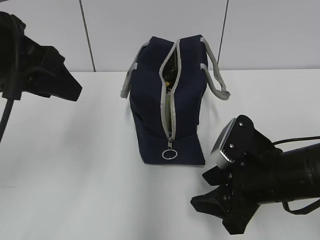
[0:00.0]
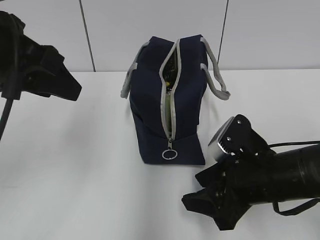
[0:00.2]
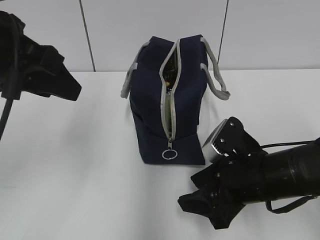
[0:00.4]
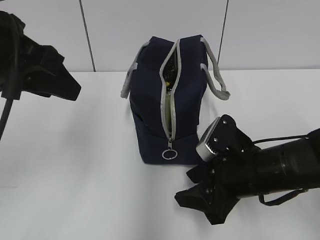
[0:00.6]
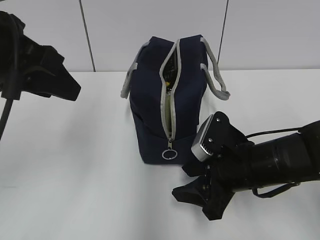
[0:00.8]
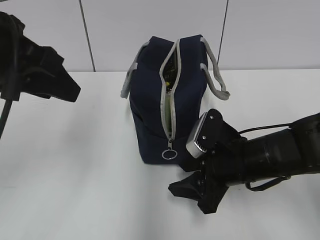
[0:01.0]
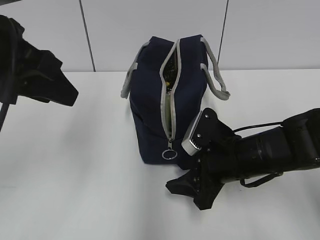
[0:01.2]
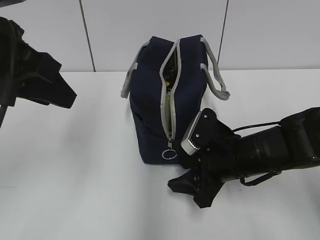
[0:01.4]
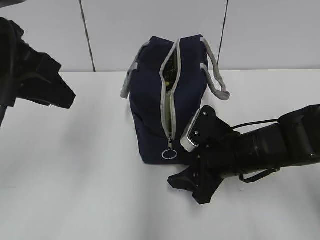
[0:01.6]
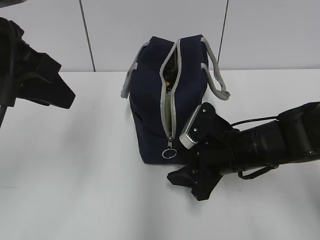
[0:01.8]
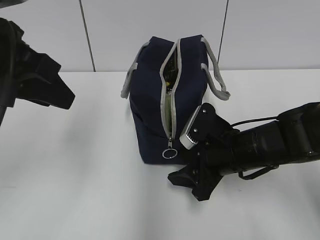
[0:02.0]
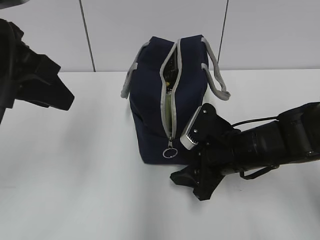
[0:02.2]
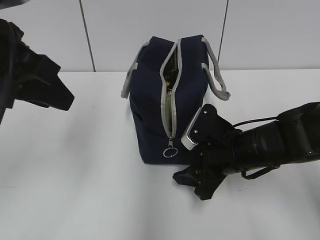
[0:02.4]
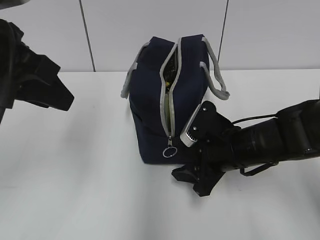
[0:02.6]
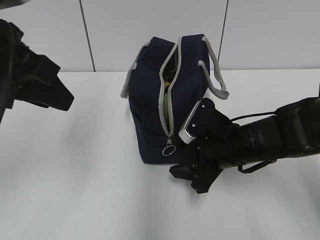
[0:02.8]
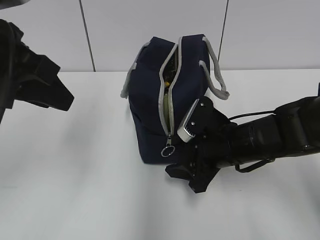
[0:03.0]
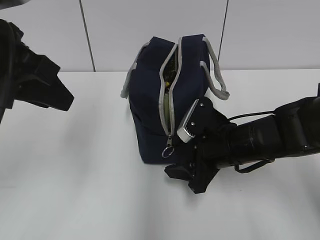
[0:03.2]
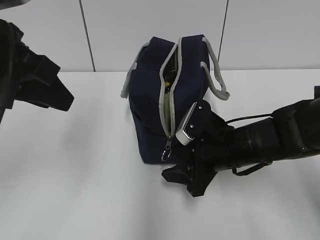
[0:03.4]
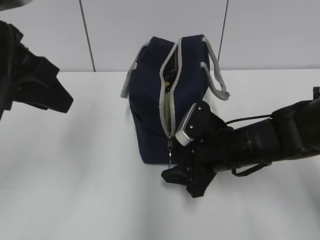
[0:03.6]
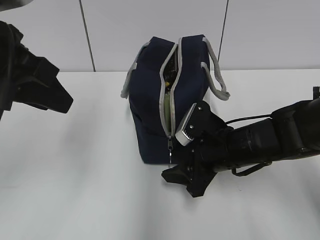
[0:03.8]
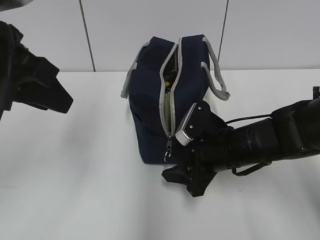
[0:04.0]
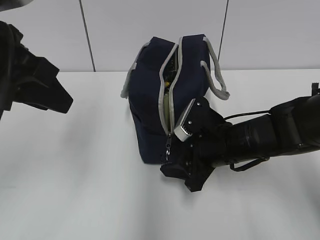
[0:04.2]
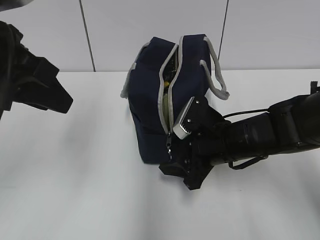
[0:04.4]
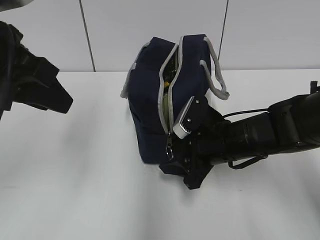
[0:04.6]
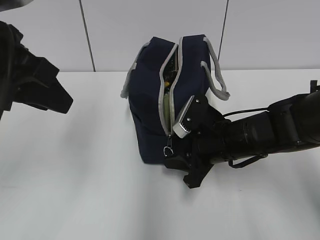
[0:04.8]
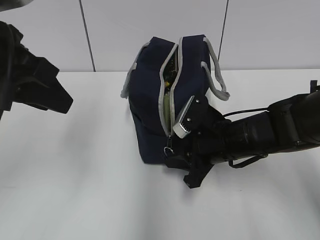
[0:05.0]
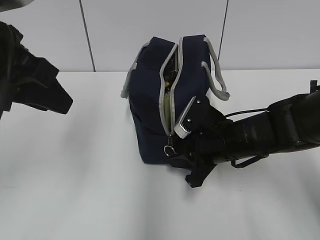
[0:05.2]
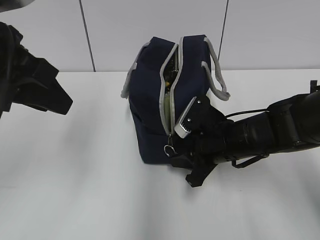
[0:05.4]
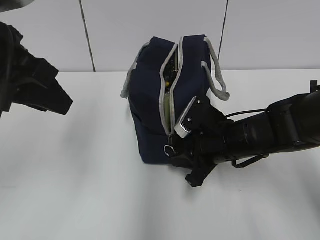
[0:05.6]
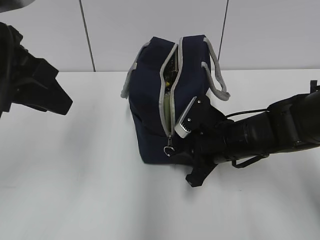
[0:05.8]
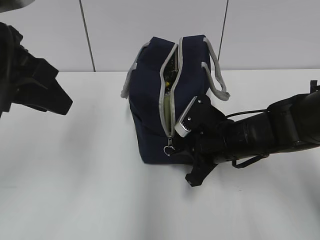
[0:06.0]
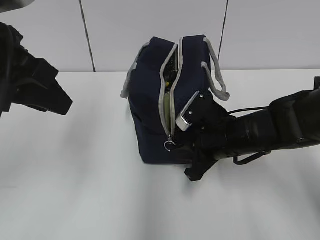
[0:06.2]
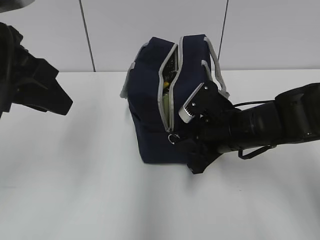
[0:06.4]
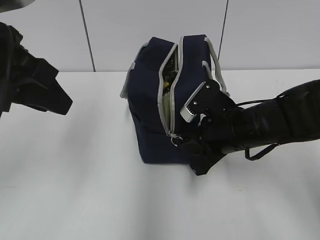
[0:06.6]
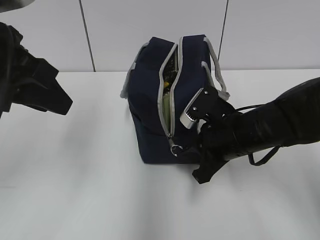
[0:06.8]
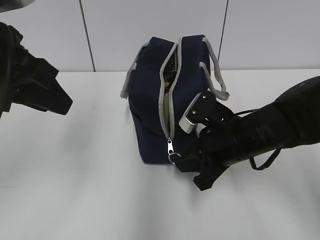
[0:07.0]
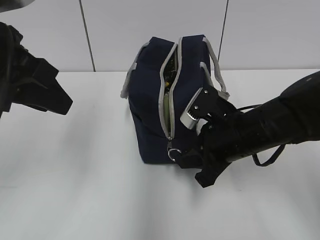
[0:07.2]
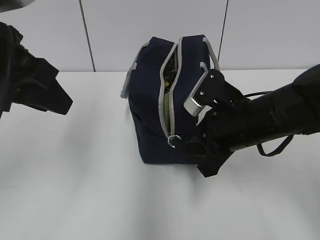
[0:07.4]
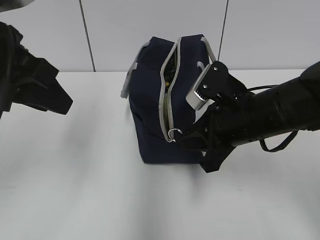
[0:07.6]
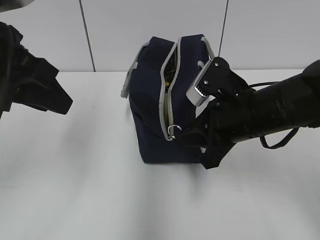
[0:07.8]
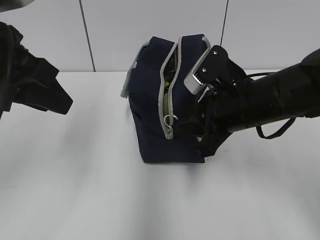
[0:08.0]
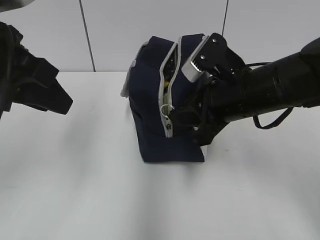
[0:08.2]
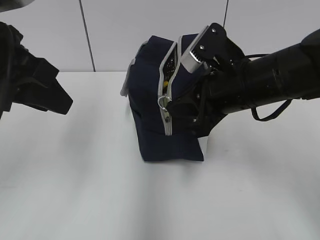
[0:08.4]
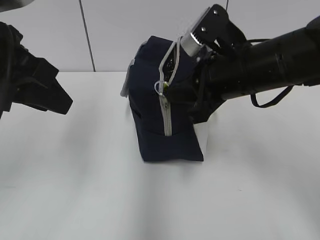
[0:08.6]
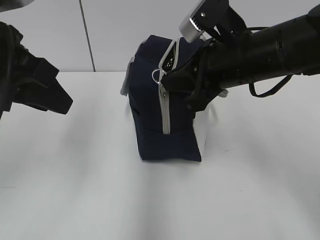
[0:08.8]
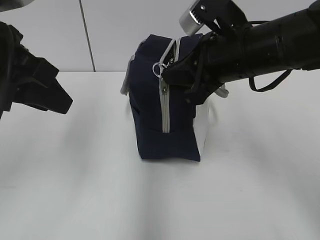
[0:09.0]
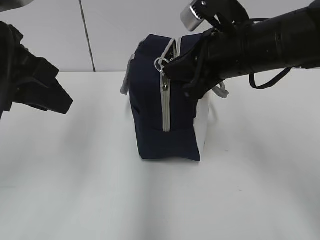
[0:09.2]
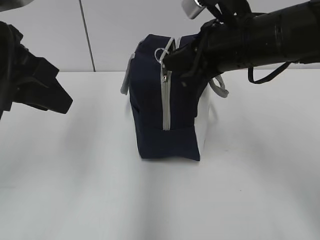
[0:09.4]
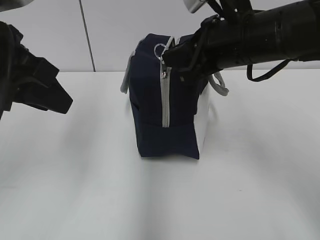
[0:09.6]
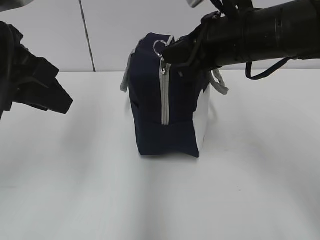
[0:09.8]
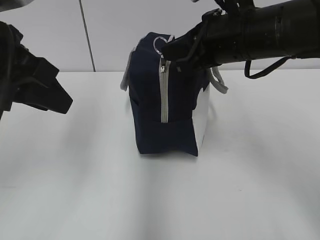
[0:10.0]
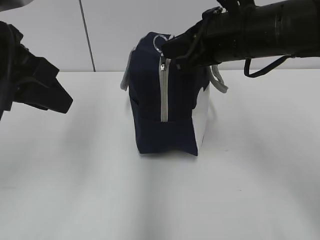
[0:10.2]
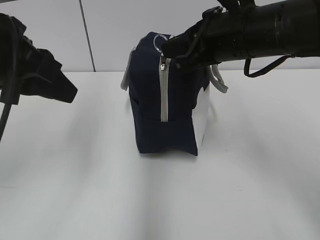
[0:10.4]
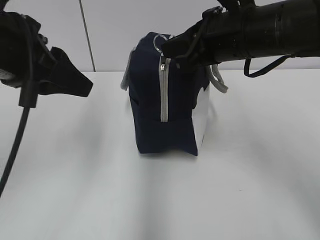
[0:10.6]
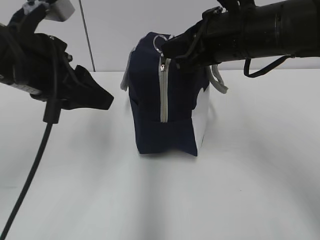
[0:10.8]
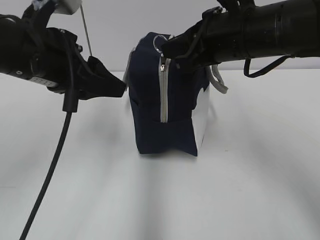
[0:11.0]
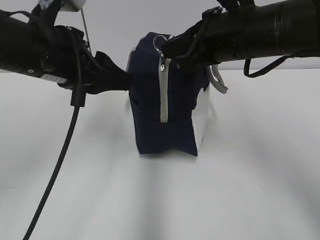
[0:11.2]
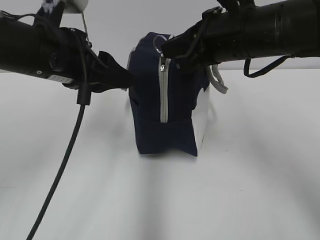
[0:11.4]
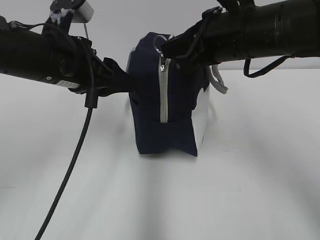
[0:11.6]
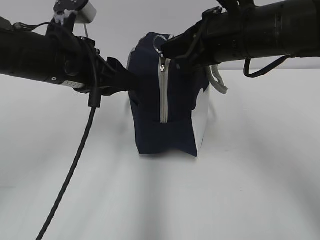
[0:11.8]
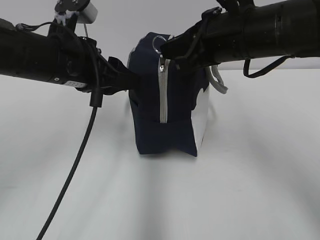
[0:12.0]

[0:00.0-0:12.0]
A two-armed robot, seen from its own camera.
0:00.0 to 0:01.6: The right gripper moves forward, some 5 cm.
0:01.6 to 0:03.0: The grippers stay close to where they were, moving slightly.
0:03.0 to 0:04.4: The two grippers keep their place.
0:04.4 to 0:06.0: The right gripper closes up.
0:06.0 to 0:07.6: The right gripper moves upward, about 10 cm.
0:07.6 to 0:09.0: The right gripper shifts some 10 cm upward.
0:09.0 to 0:10.4: The grippers move only a little.
0:10.4 to 0:12.0: The left gripper moves forward and downward, about 10 cm.

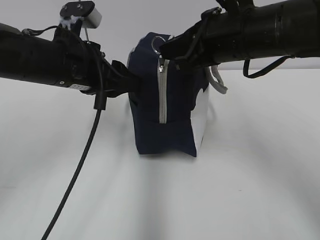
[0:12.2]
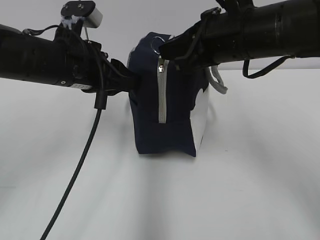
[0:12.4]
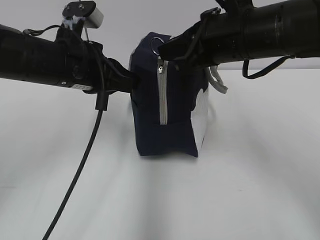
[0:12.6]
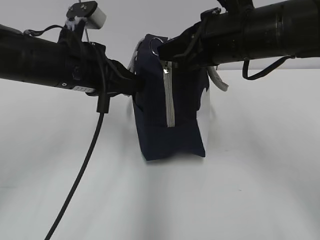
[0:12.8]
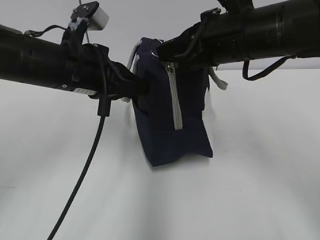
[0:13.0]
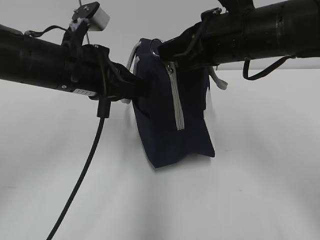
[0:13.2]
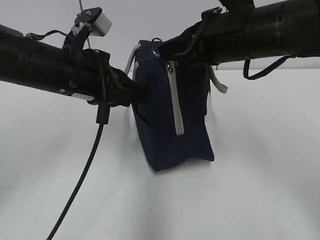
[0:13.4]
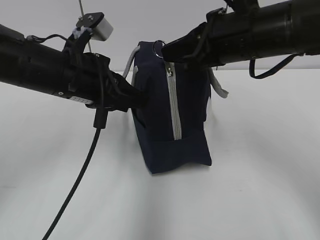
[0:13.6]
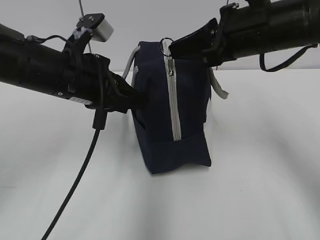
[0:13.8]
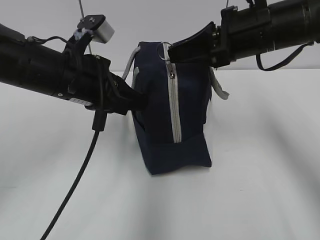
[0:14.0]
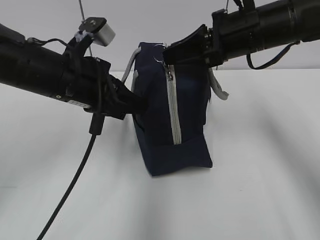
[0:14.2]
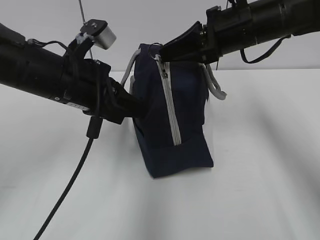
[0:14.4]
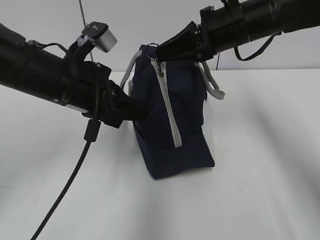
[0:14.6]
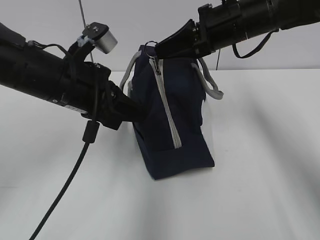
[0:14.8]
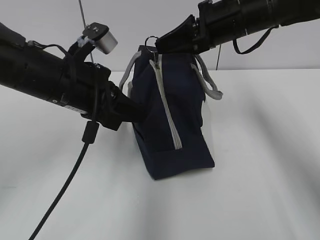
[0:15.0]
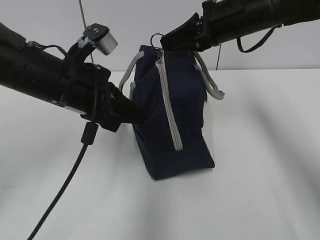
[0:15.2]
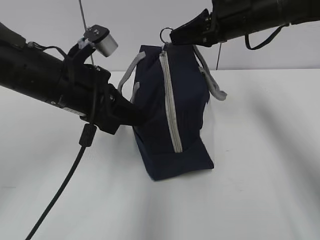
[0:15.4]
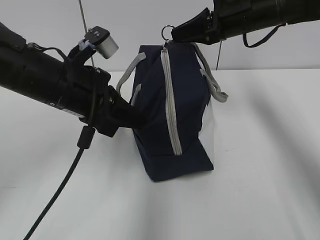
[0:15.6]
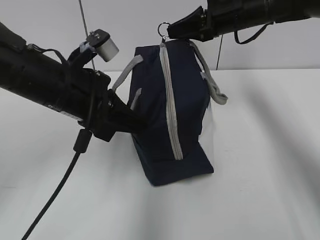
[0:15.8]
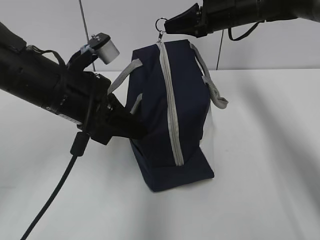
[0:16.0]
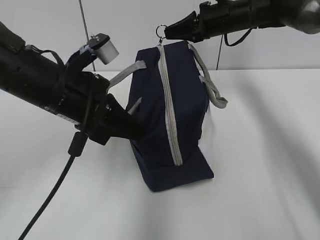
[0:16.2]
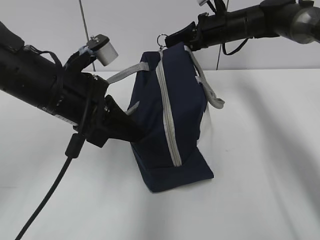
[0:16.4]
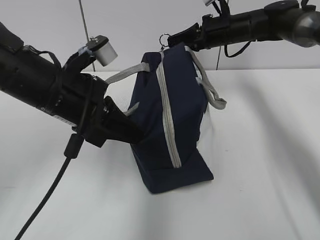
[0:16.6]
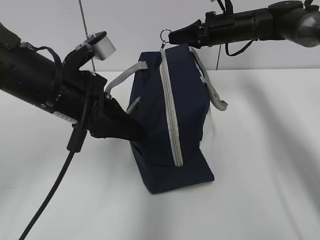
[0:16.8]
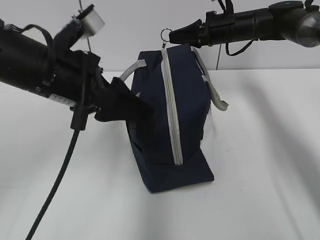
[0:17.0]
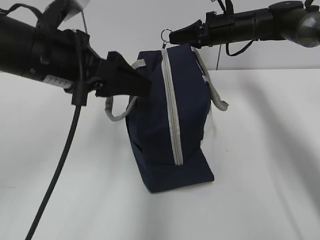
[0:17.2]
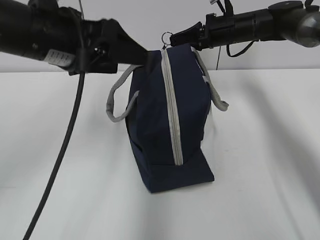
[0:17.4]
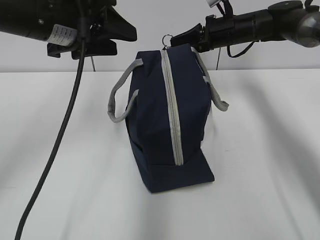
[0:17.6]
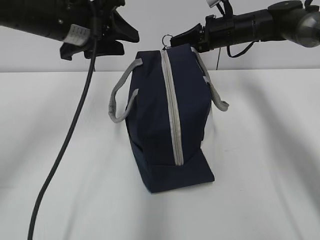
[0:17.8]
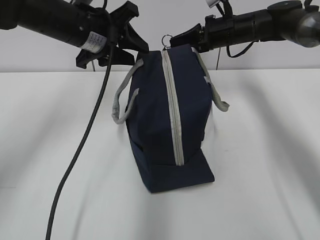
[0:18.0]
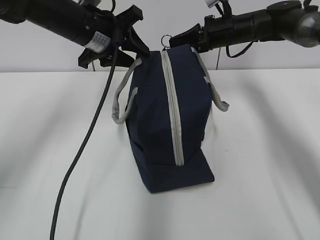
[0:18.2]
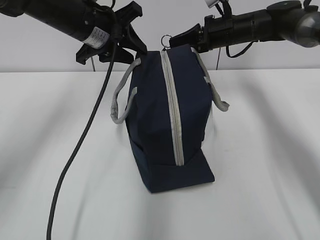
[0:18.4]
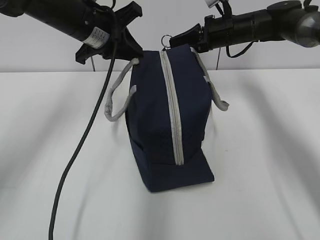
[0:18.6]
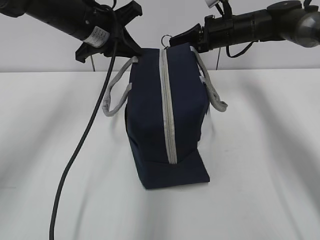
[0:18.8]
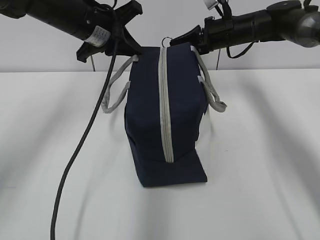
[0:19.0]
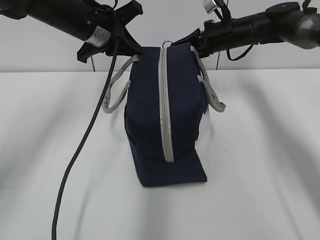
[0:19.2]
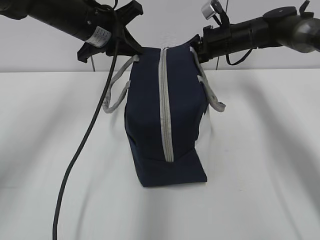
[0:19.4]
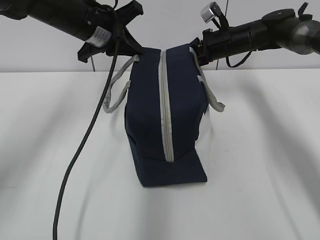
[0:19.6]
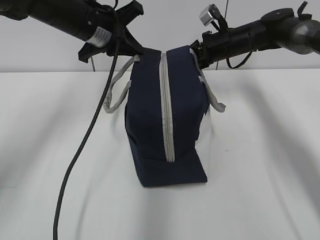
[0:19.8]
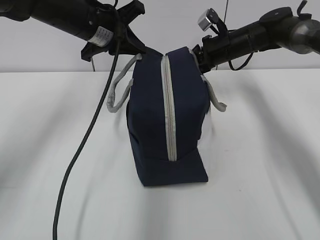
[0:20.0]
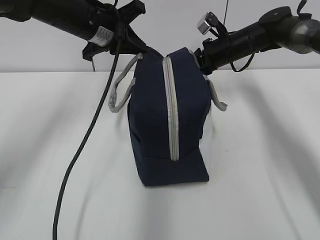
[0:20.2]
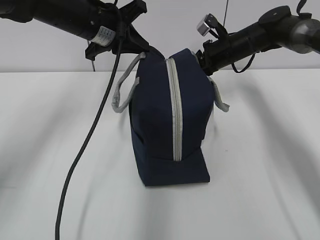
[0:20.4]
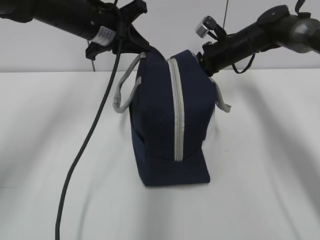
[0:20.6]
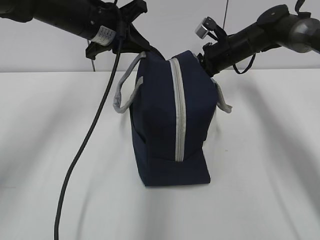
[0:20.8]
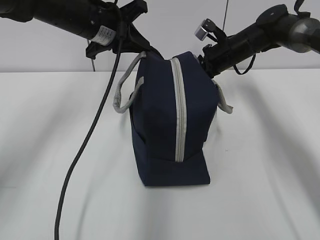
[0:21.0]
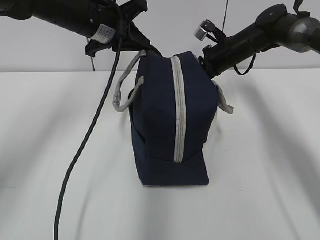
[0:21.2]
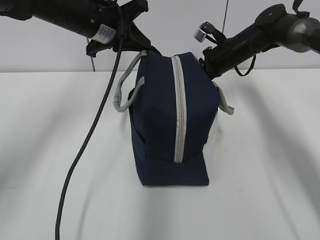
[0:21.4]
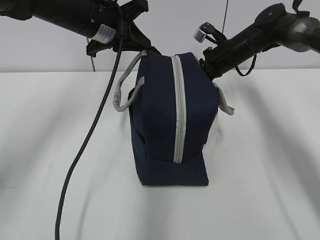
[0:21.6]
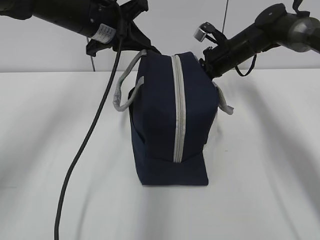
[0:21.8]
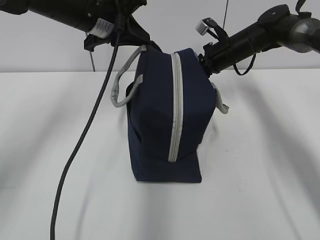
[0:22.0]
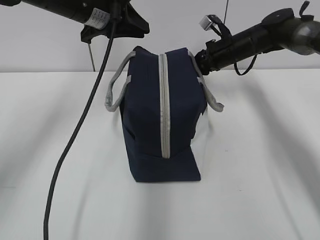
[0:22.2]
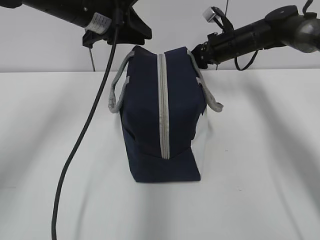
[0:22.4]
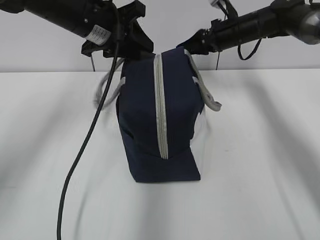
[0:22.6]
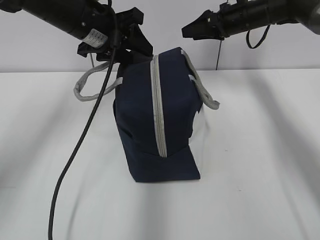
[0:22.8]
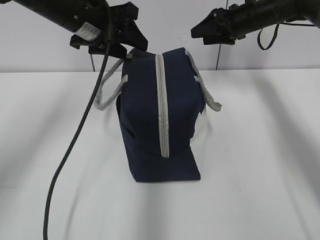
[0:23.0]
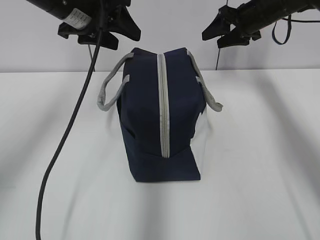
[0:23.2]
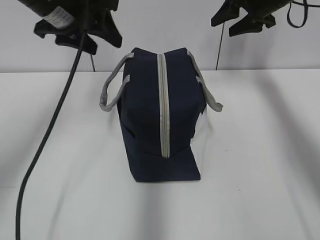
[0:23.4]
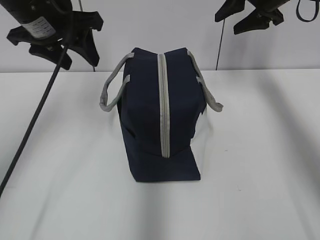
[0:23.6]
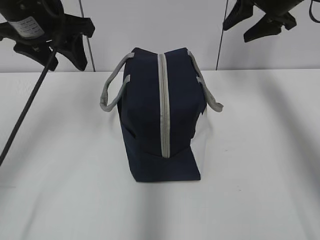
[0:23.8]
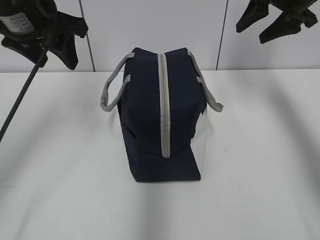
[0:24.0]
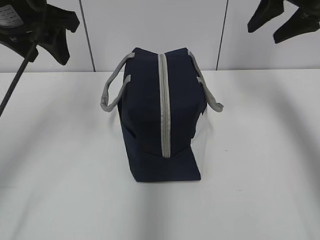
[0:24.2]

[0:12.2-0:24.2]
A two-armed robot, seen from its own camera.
Step, 0:12.2 to 0:16.8: Grab the lunch bag with your left hand.
Step, 0:17.0 to 0:21.4: Pull the zipper with your right hand.
Step, 0:21.6 to 0:21.8: Grab the lunch bag with your left hand.
0:12.2 to 0:13.8: The left gripper closes its fingers.
0:13.8 to 0:15.2: The right gripper shifts some 10 cm forward.
0:15.2 to 0:16.6: The right gripper goes approximately 15 cm forward and downward.
0:16.6 to 0:18.2: The left gripper travels forward by about 15 cm, and opens up.
0:18.2 to 0:19.8: The left gripper closes its fingers.
0:19.8 to 0:21.2: There are only small adjustments of the grippers.
0:21.2 to 0:22.6: The left gripper opens up; the right gripper opens up.
0:22.6 to 0:24.2: The right gripper is displaced upward, backward and to the right by some 20 cm; the left gripper shifts some 10 cm to the left, backward and upward.
